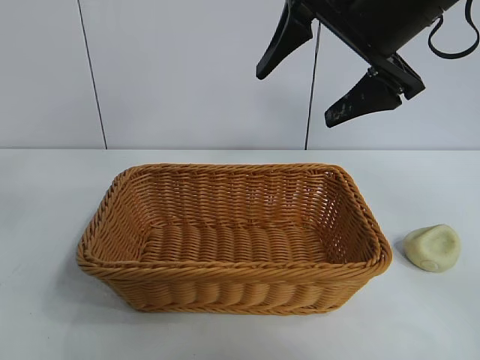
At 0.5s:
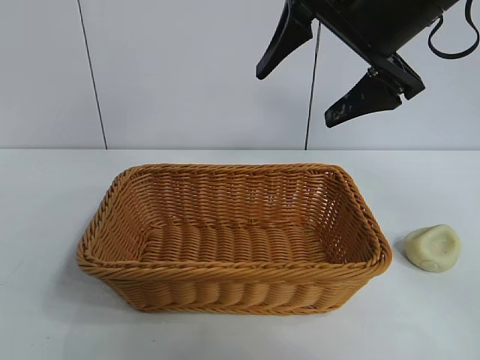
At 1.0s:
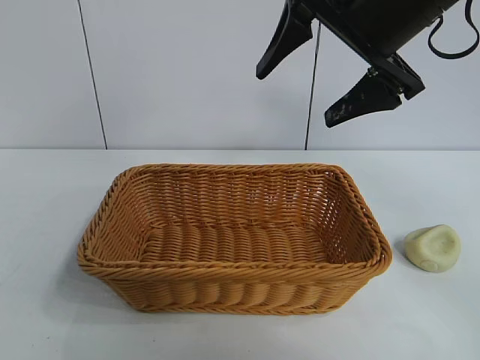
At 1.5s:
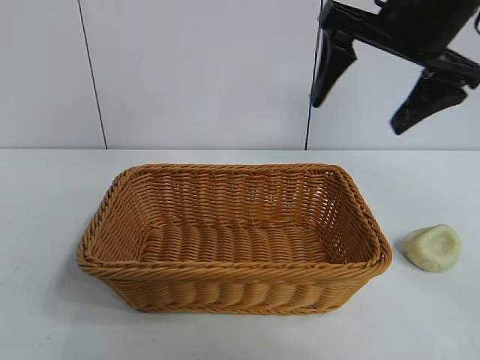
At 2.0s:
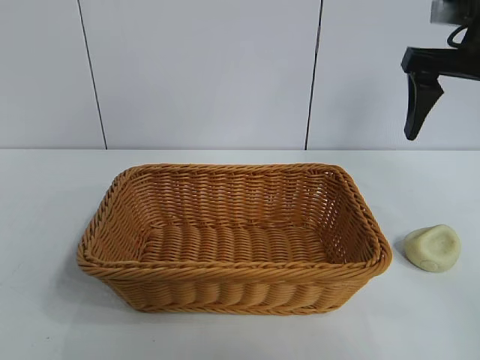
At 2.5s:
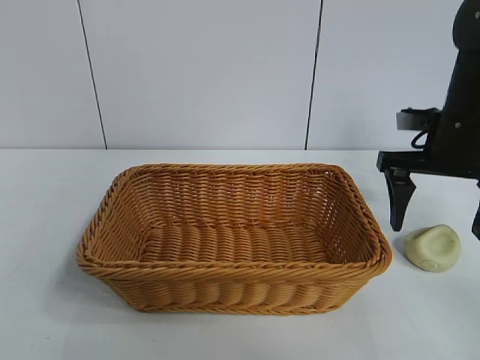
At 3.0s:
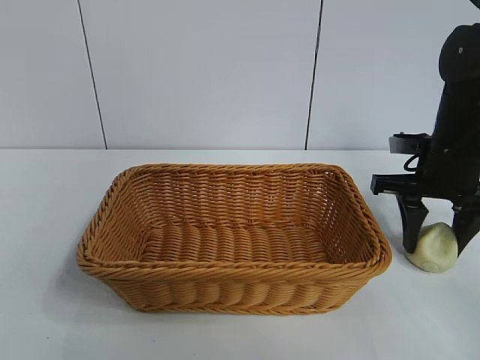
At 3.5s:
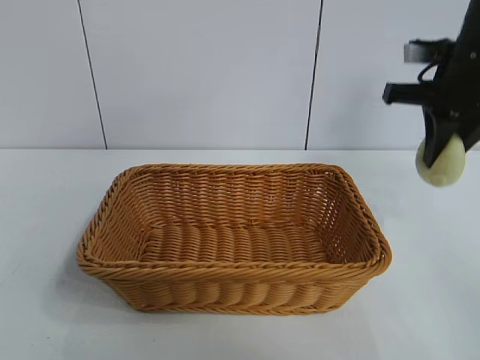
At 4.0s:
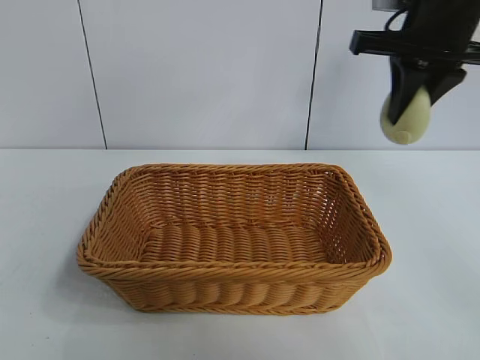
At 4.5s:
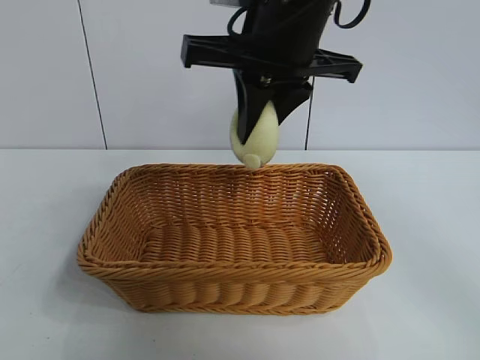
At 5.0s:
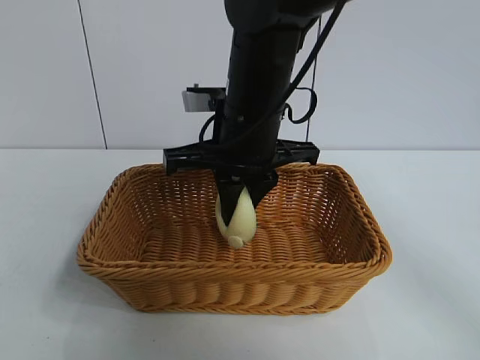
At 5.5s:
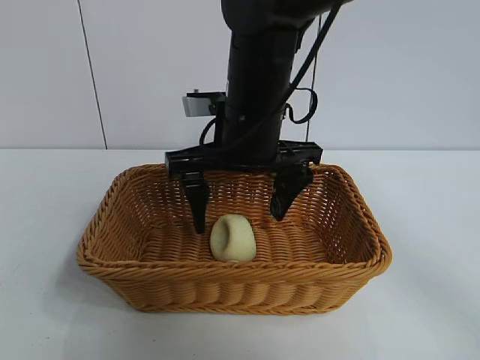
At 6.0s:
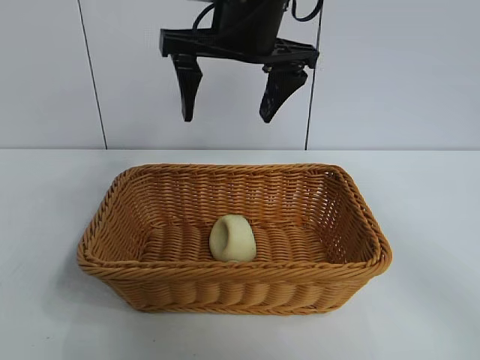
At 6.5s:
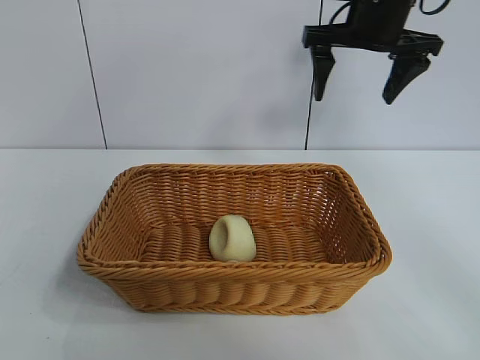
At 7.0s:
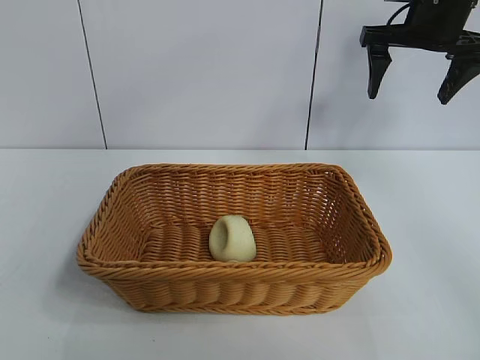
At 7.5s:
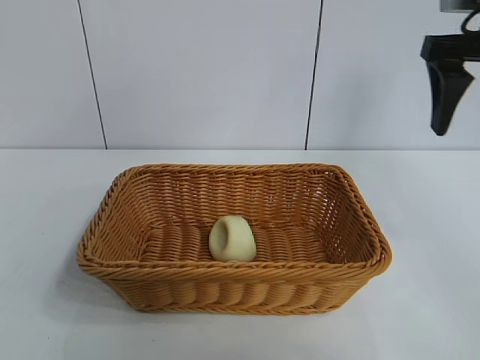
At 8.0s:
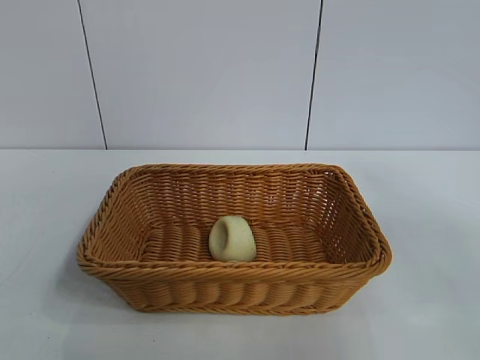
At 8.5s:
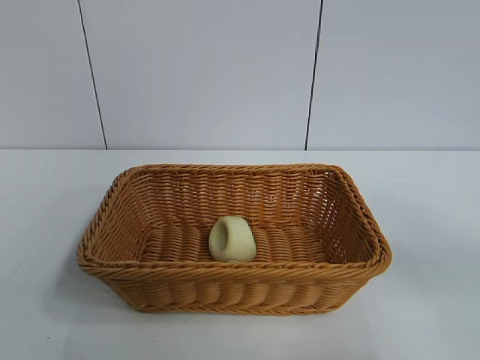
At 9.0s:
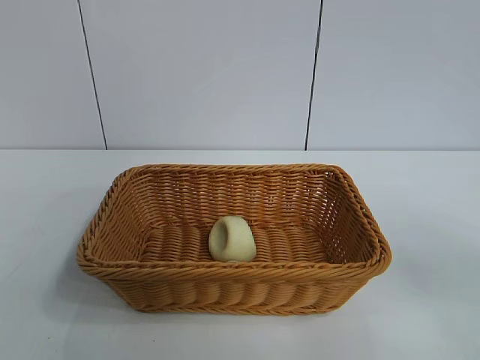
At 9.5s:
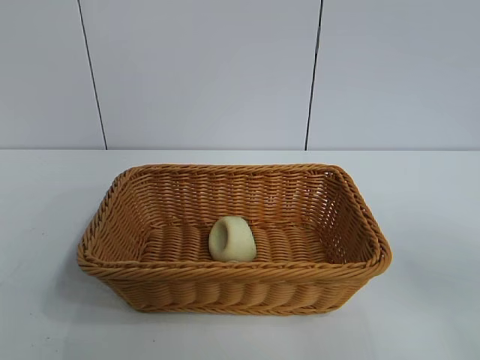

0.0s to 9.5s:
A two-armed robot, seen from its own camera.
Task of the whole recording: pick up the egg yolk pastry and put it into the basket.
Step, 0.0s to 3.0s: Grasp egg yolk pastry with right gripper.
Step, 3.5s to 5.0s: Place the egg yolk pastry in the basket with right gripper.

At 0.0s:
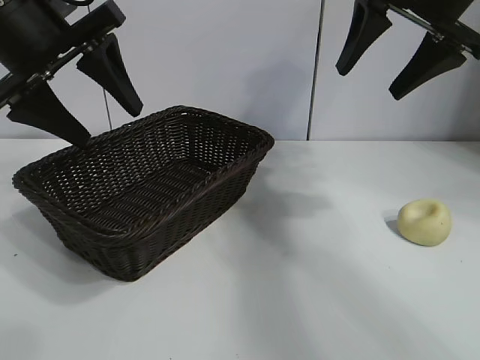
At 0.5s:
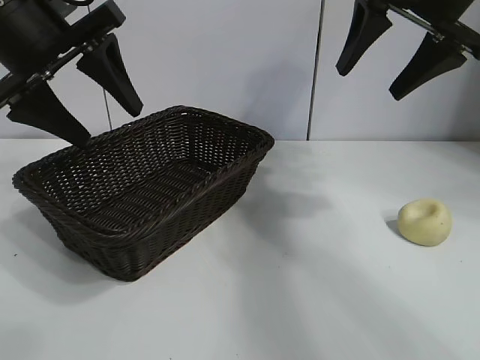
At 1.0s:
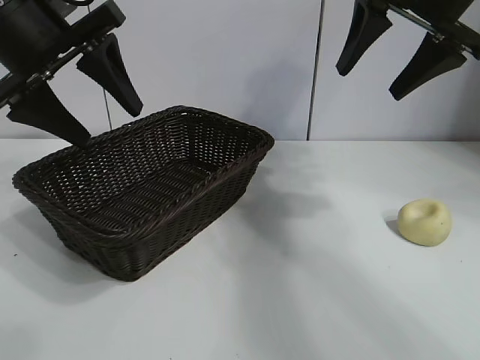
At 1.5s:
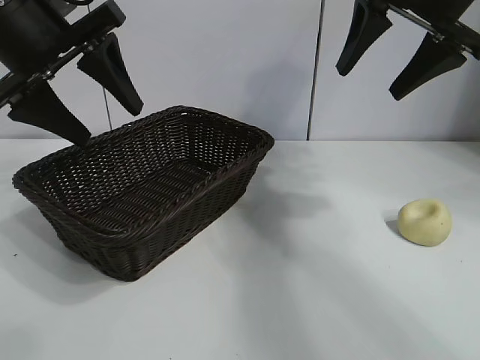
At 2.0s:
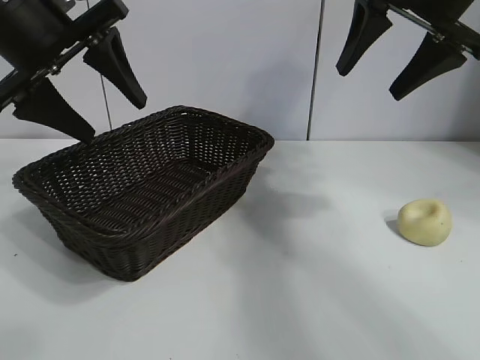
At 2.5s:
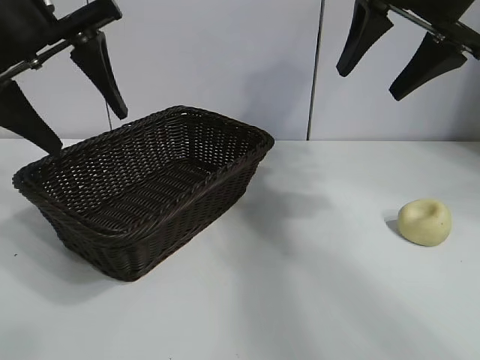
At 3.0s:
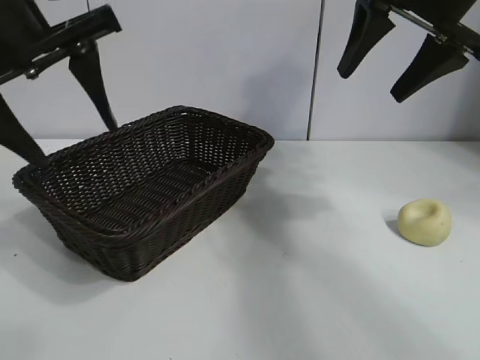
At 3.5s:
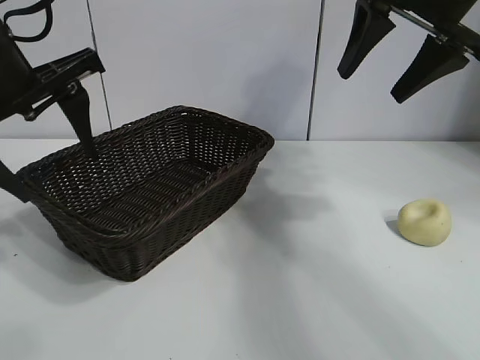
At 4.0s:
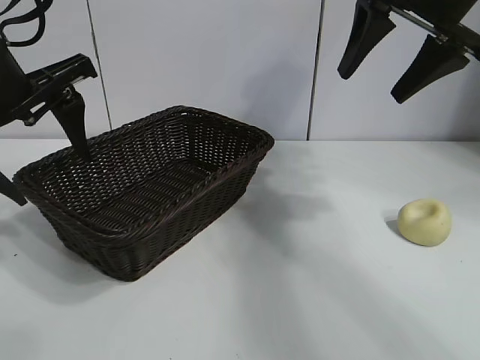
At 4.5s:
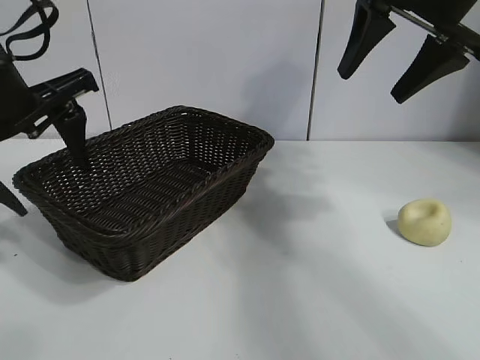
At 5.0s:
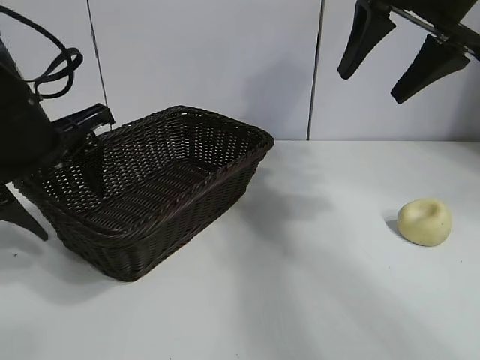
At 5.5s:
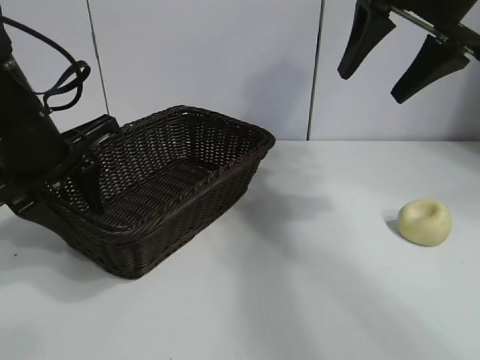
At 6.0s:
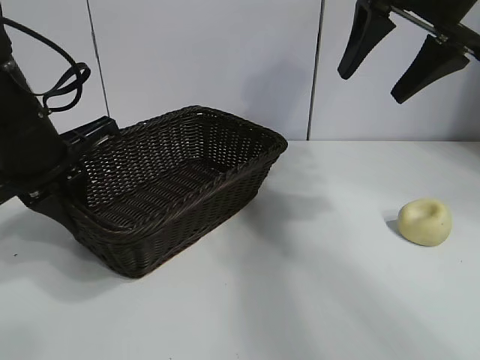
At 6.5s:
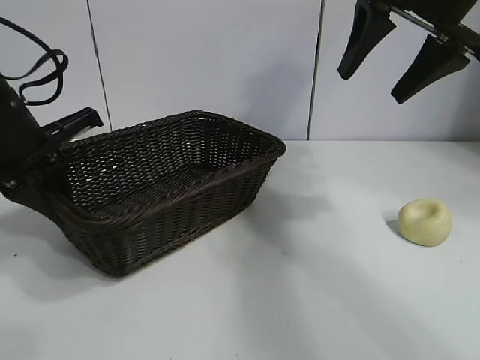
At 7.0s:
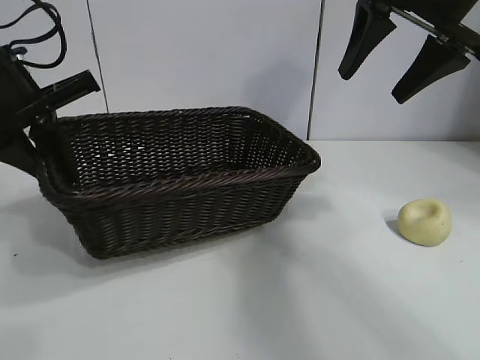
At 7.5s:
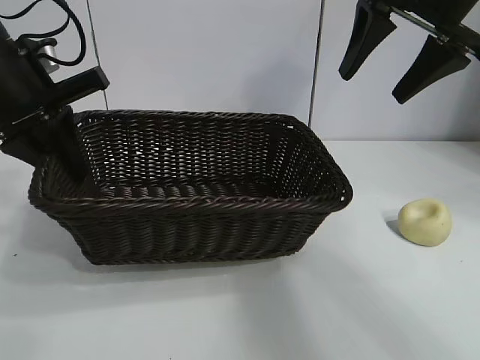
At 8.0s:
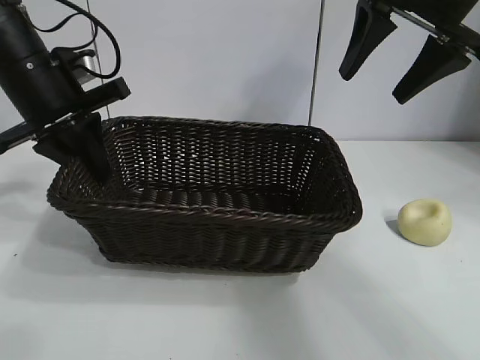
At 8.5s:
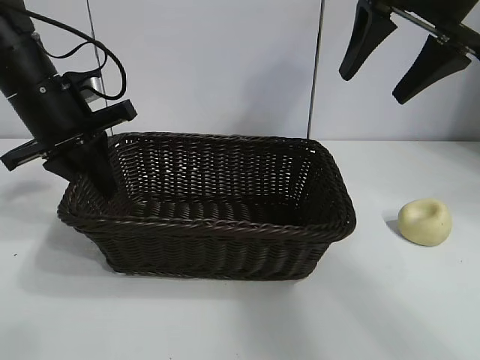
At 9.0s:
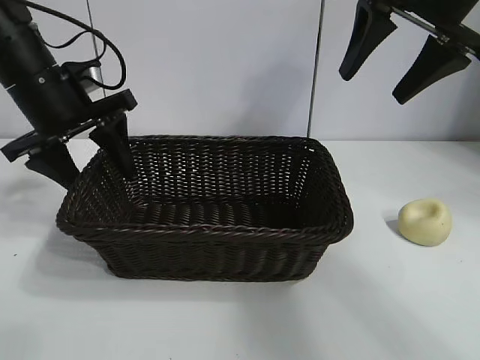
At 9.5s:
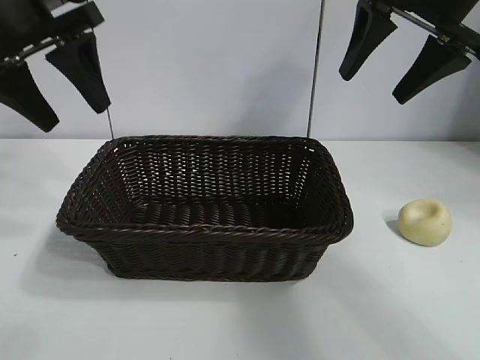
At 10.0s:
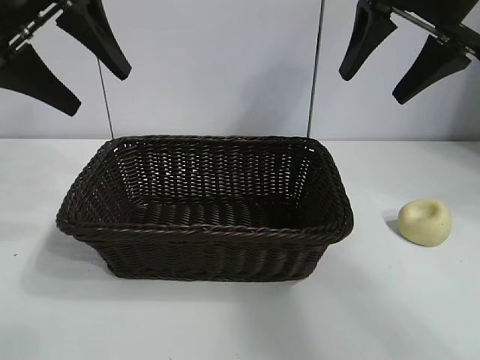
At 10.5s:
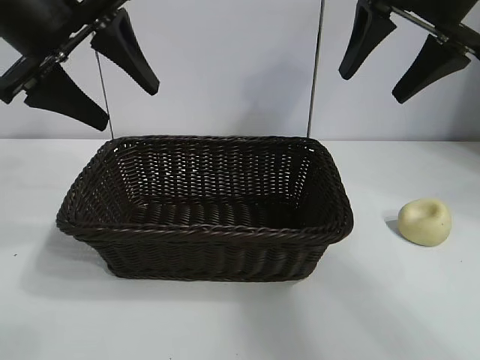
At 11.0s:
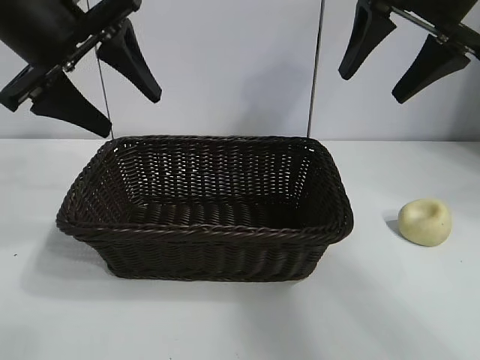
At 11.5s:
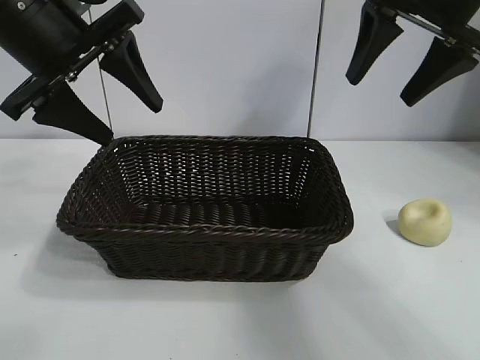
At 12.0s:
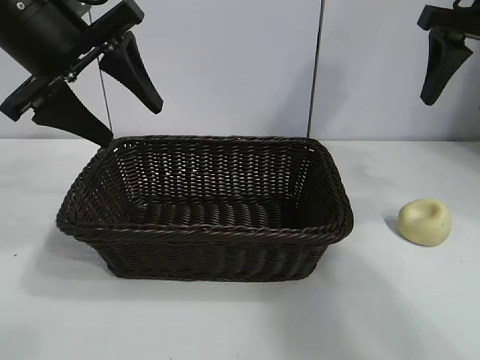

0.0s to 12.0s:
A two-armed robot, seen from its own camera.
Task of the whole recording: pick up the egg yolk pastry and put it into the basket.
Step, 2.0s to 5.5s: Grasp the basket with left gripper.
Step, 6.5s to 9.0s: Place the basket in the center of view with left gripper.

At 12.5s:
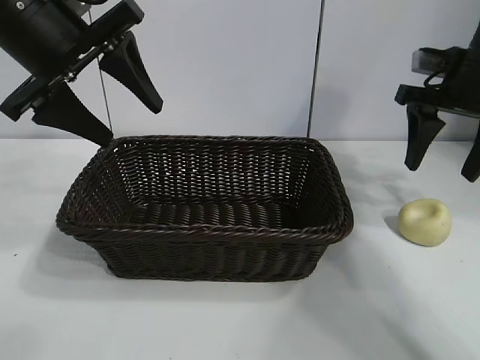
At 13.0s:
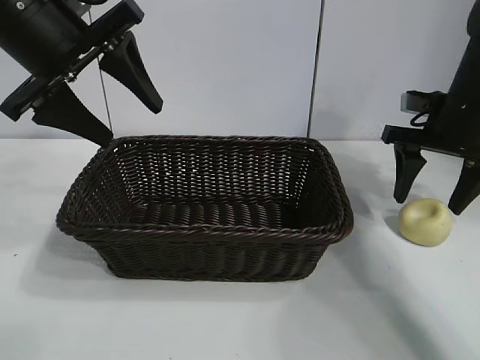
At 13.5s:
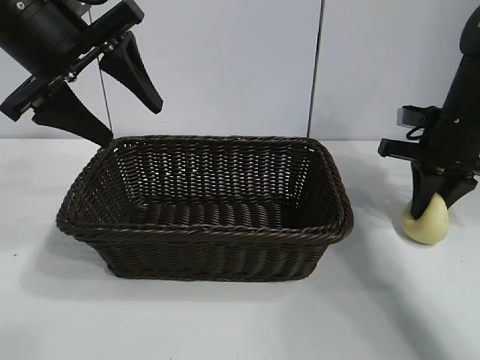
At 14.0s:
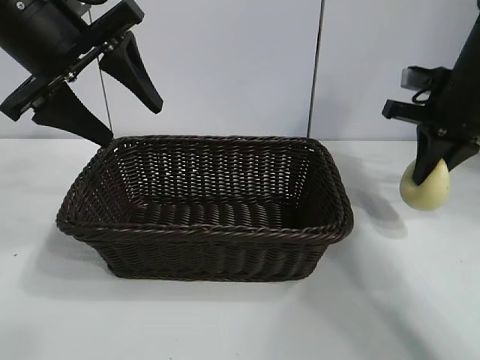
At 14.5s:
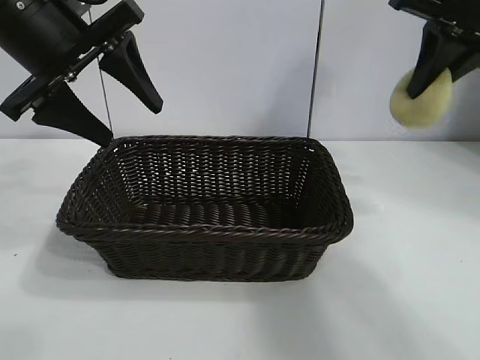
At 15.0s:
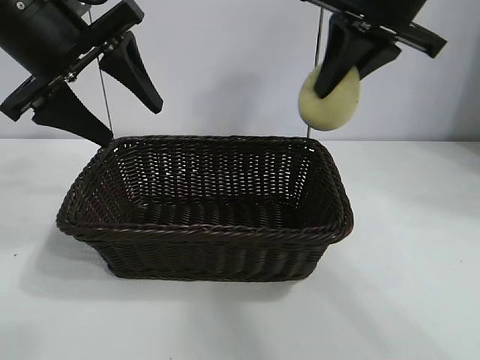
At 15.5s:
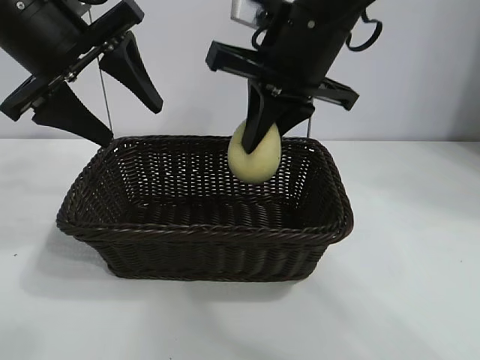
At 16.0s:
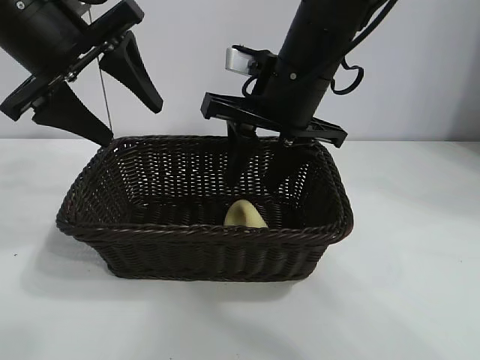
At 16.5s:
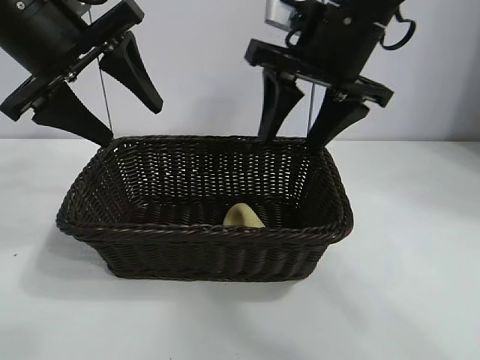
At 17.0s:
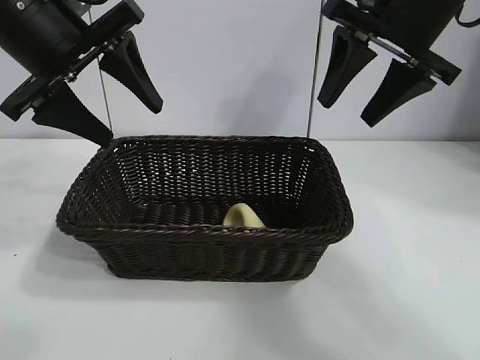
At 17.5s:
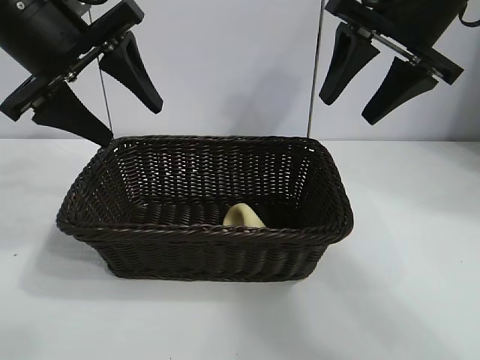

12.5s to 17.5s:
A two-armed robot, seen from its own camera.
Task of the whole recording: pick up the egg yolk pastry and put it into the basket.
Step, 14.0s to 16.0s: Place the egg yolk pastry in the basket with right gripper.
